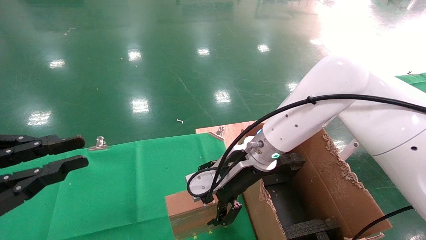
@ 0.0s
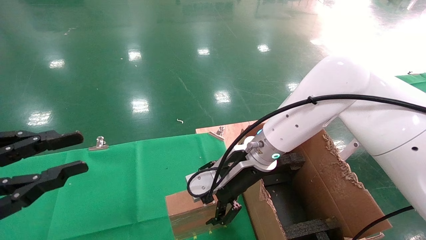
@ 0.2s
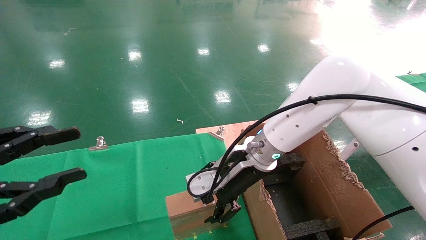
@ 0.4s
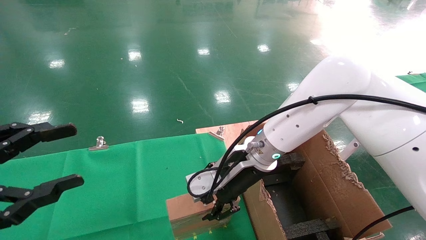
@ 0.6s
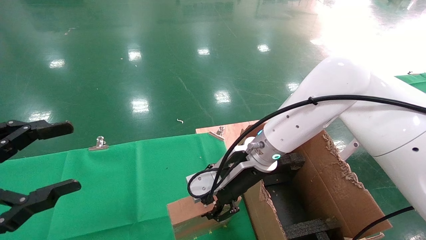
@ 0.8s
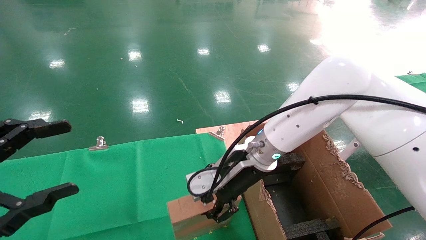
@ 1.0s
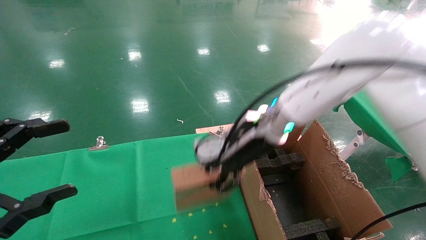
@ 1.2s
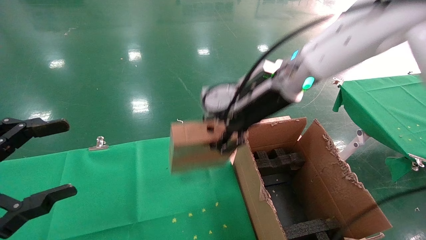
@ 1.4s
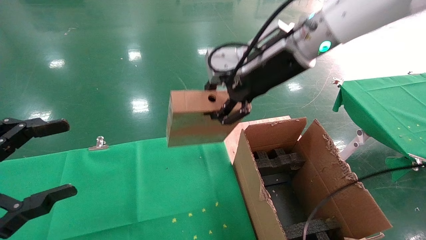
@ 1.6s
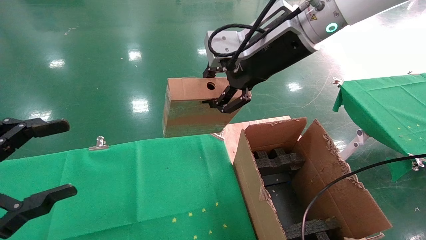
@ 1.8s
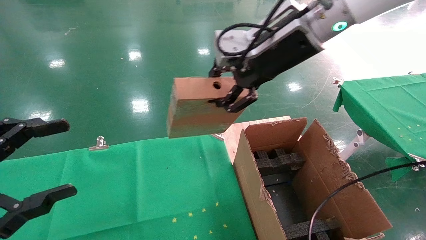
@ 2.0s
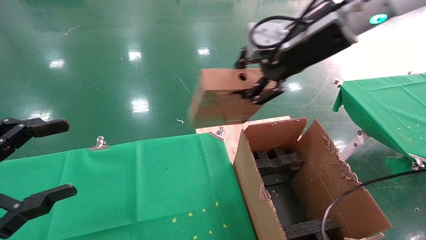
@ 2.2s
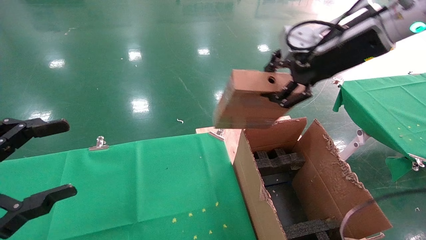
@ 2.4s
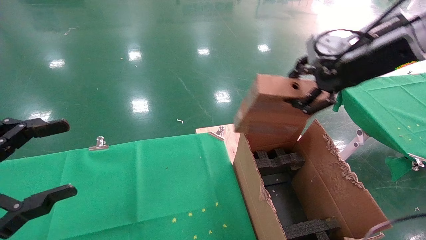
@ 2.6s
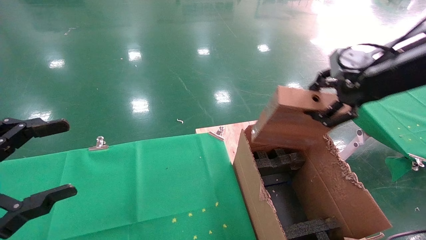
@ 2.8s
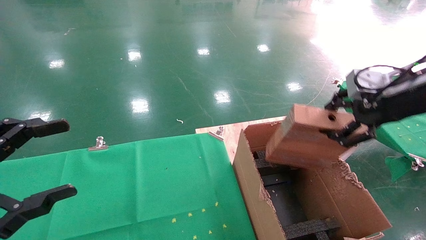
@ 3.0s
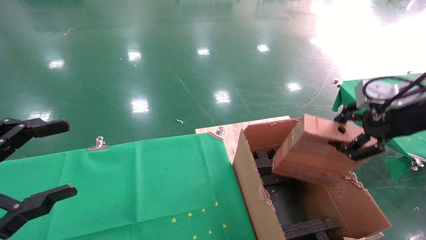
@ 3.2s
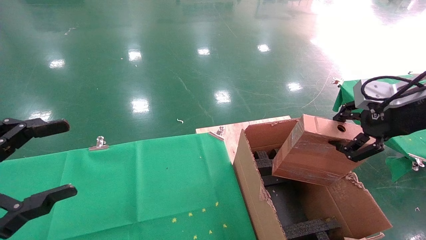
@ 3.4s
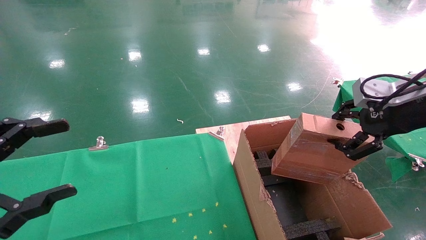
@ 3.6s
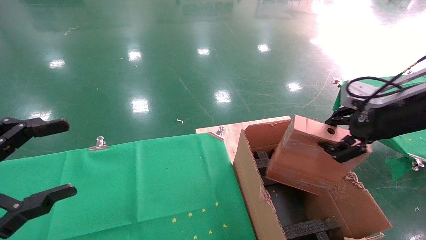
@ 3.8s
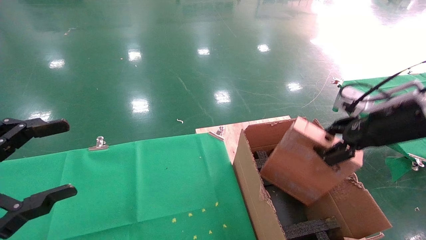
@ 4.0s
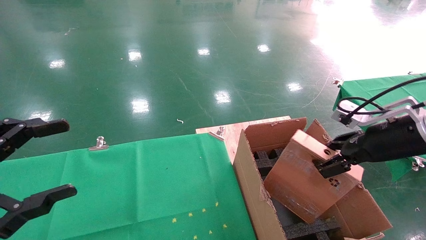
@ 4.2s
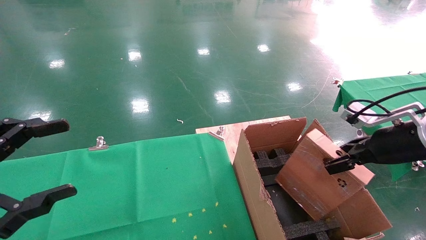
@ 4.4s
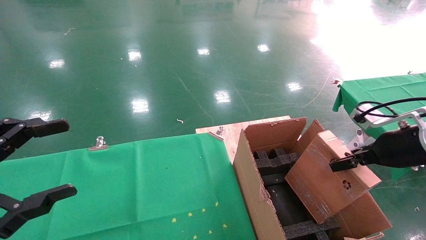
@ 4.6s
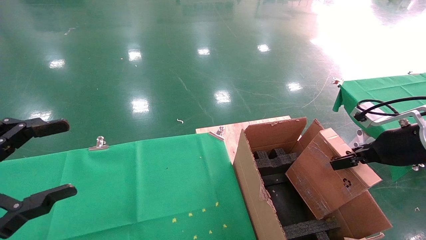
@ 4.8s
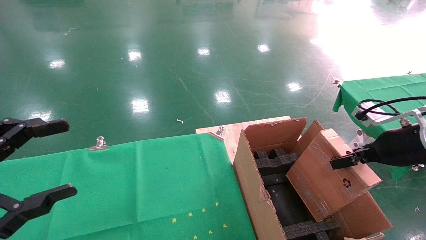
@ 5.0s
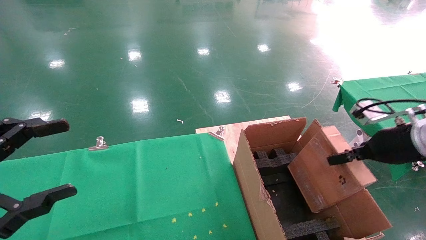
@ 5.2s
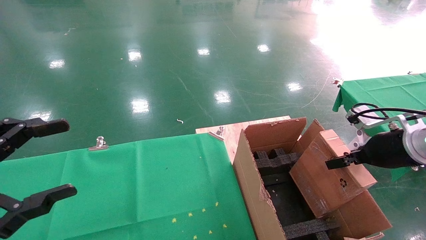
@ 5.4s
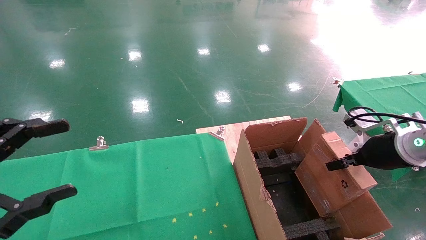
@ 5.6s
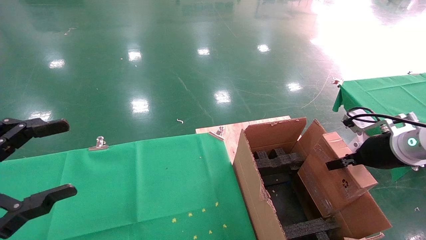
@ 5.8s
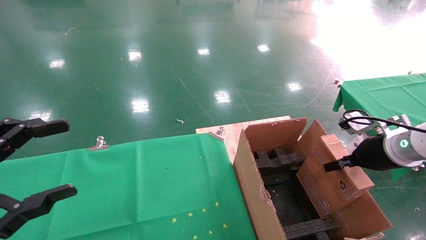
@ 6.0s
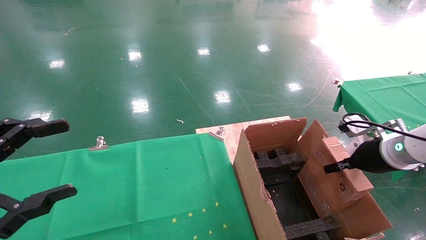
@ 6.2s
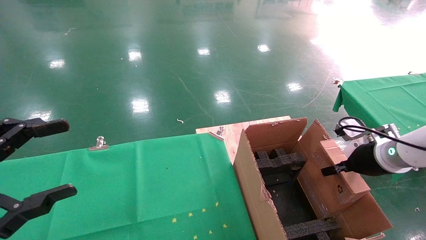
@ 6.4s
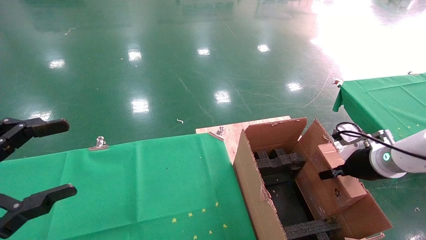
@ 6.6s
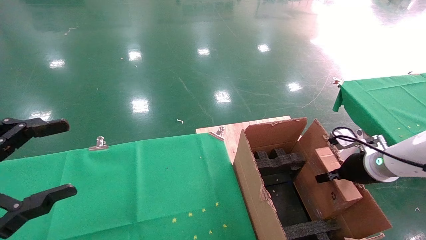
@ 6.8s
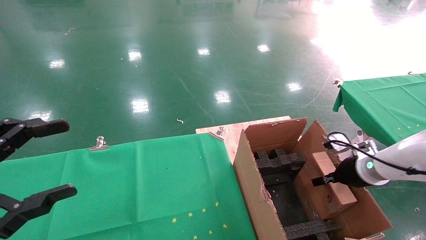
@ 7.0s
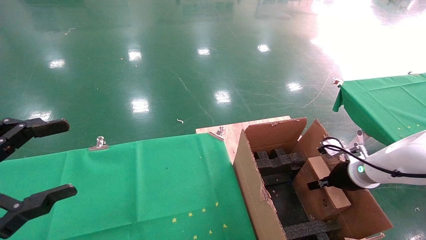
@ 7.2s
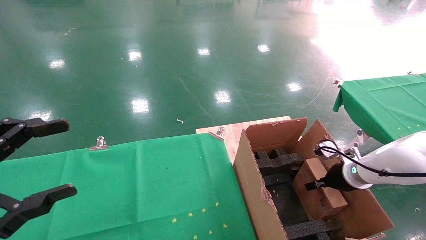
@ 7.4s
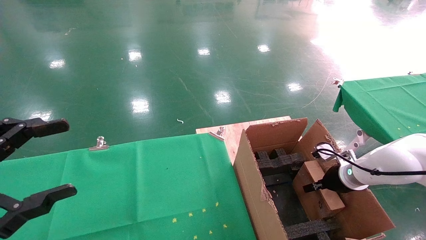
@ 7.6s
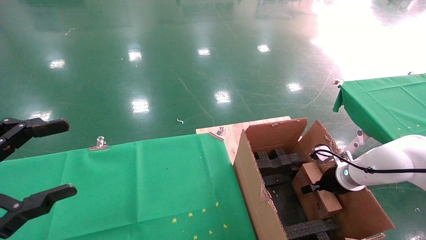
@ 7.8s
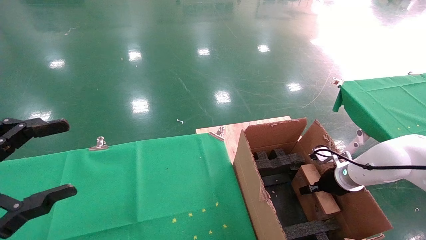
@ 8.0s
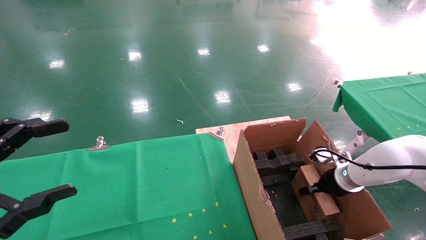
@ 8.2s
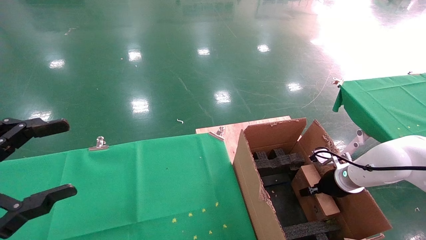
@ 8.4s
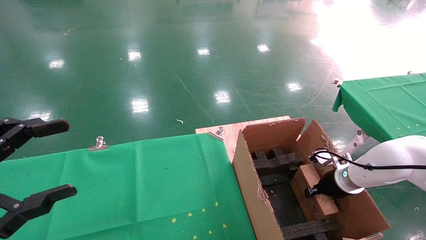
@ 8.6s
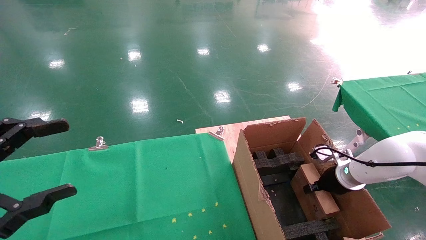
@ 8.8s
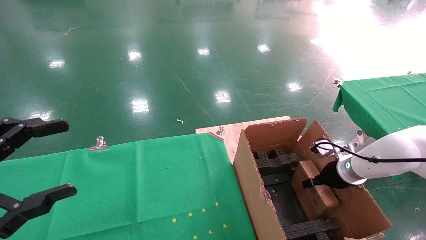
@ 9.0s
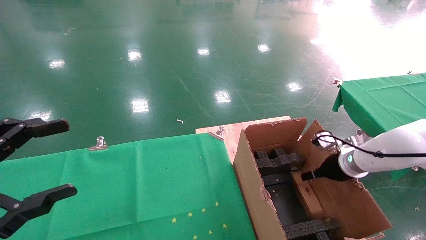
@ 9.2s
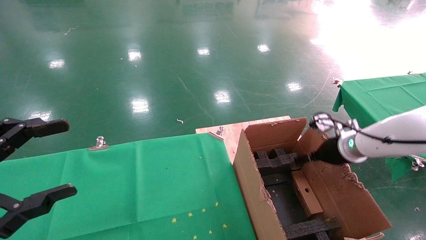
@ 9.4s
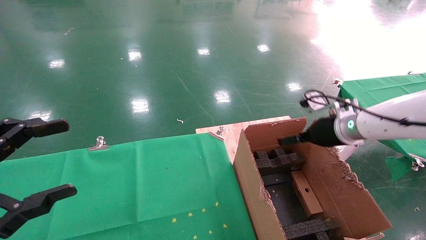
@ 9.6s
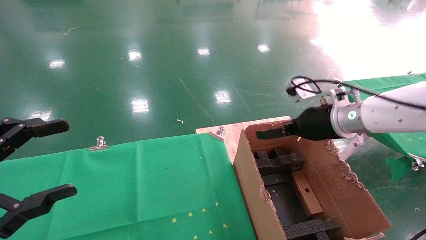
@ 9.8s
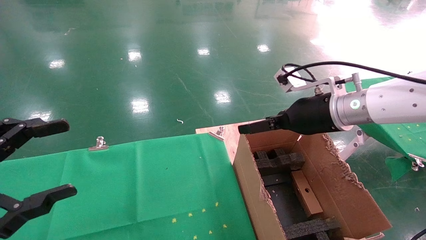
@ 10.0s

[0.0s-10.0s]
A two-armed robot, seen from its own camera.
Task of the whole recording: using a robotic arm to pick up a cardboard box and palace it the carton.
Step, 1.2s to 9.2s: Place the mouse and the power cord paper box into the container.
0.0s to 1.4s: The left gripper opens its fingers. The right gripper travels upward by roughly 15 cm, and closes up.
1.4s to 2.8s: The right gripper moves to the right, roughly 20 cm.
2.8s to 4.2s: The right gripper goes some 10 cm downward.
4.2s to 5.8s: The right gripper is displaced downward by some 5 cm.
5.8s to 7.2s: The right gripper goes roughly 10 cm downward and forward.
7.2s to 8.6s: There are only small adjustments of the grippers.
8.6s to 10.0s: The right gripper goes approximately 25 cm upward and to the left, and opens its fingers.

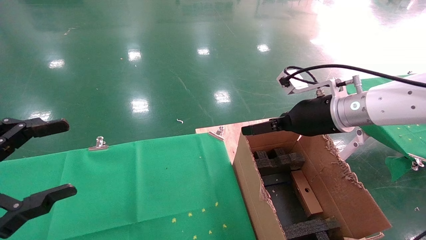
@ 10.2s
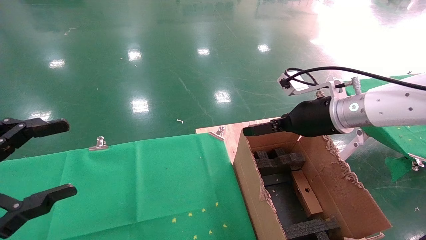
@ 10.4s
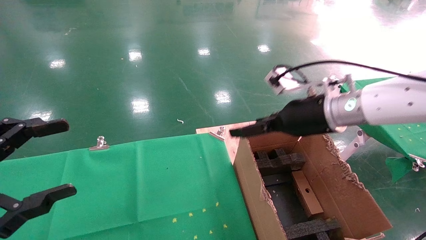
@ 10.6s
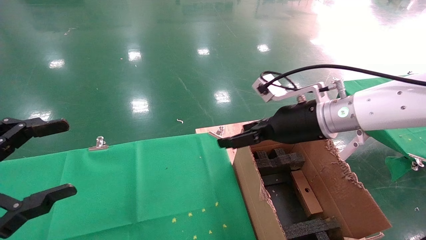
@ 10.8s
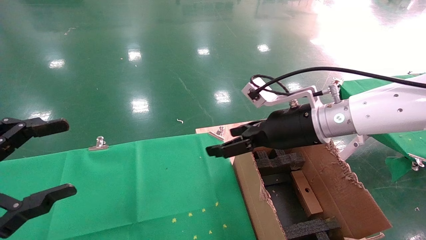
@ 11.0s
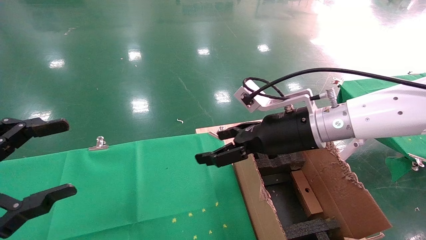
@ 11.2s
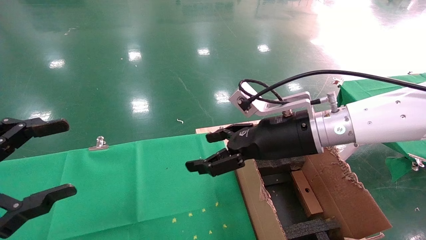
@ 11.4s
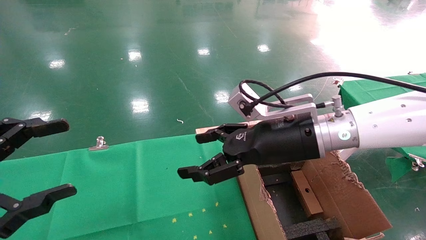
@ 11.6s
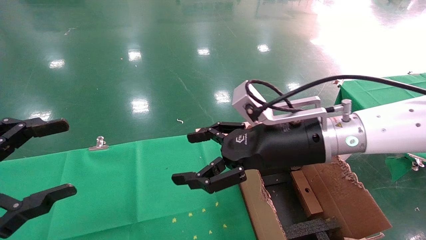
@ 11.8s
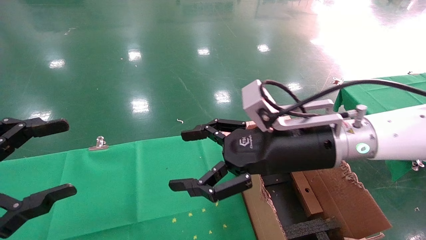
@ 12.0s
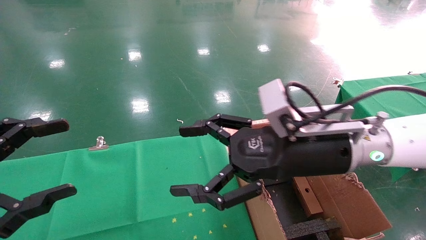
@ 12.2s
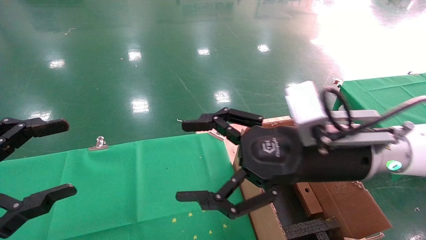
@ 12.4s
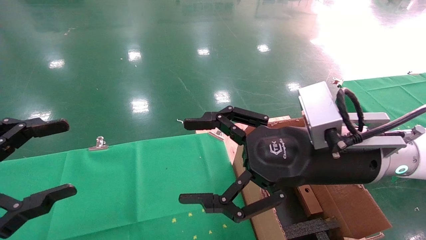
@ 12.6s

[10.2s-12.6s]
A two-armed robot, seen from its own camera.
Task of the whole recording: using a robotic arm to pick up a cardboard box and palace it the carton.
10.2s to 11.4s: The right gripper travels to the left by some 10 cm.
11.4s to 12.6s: The right gripper travels backward by some 5 cm.

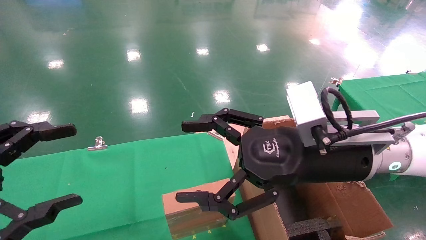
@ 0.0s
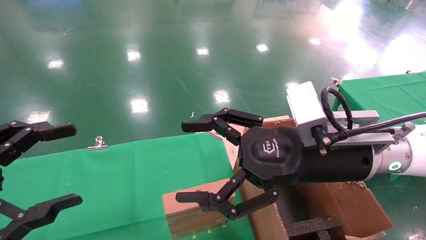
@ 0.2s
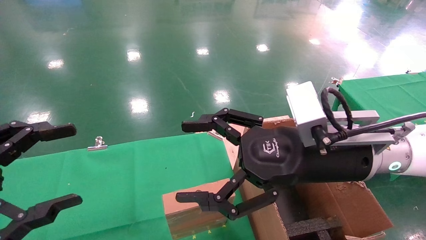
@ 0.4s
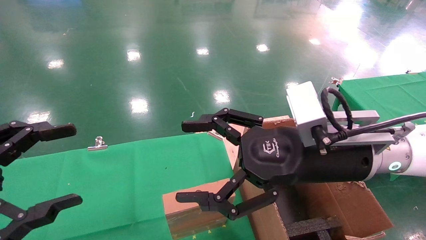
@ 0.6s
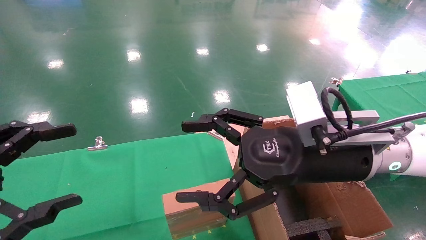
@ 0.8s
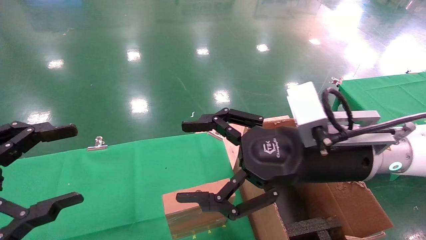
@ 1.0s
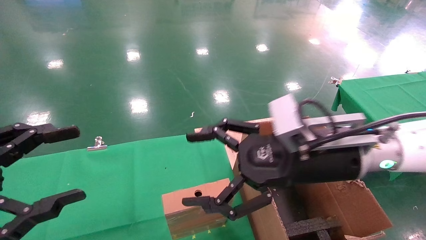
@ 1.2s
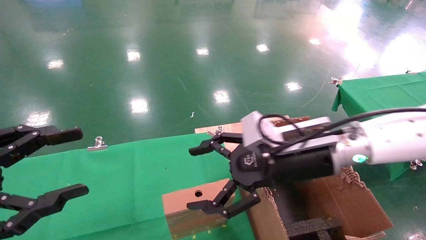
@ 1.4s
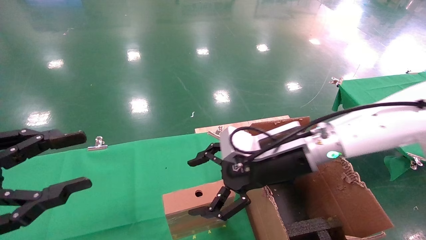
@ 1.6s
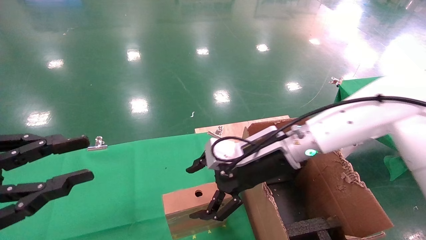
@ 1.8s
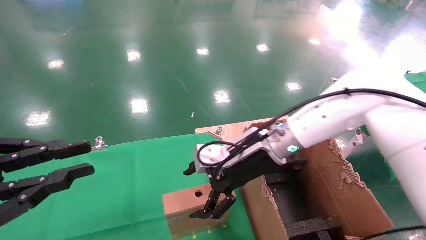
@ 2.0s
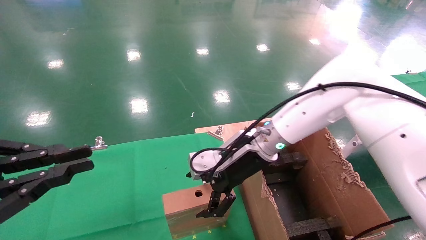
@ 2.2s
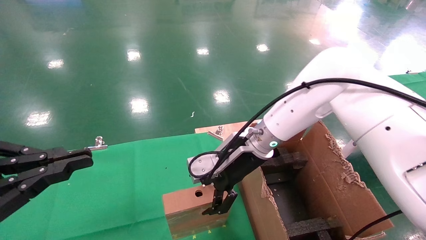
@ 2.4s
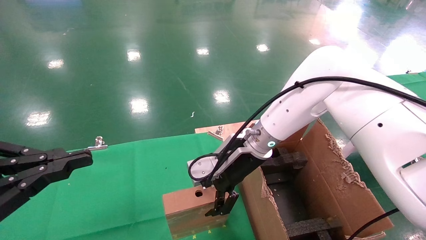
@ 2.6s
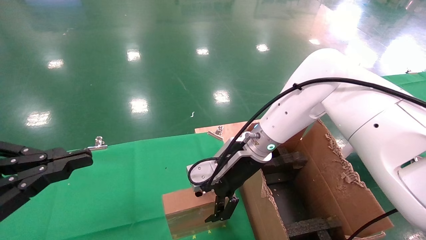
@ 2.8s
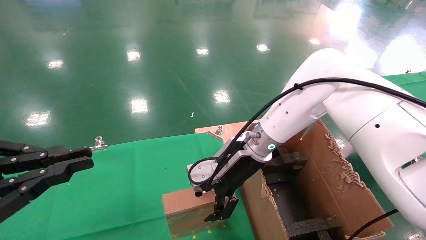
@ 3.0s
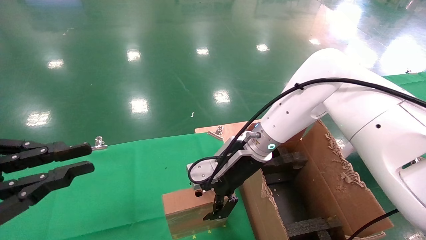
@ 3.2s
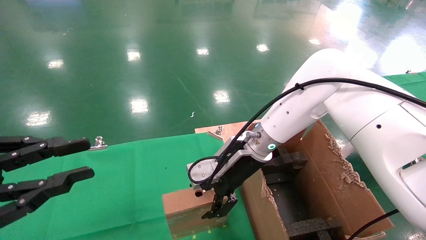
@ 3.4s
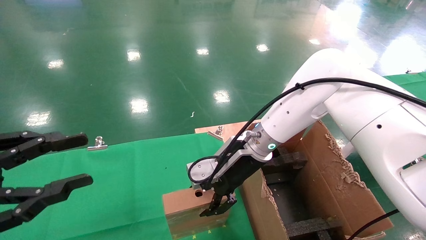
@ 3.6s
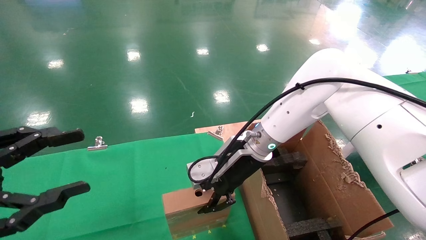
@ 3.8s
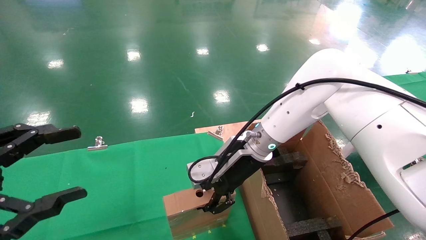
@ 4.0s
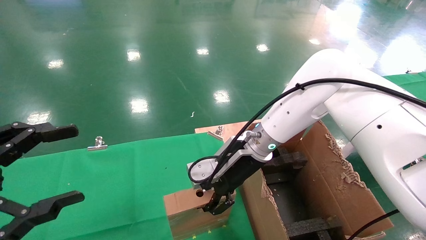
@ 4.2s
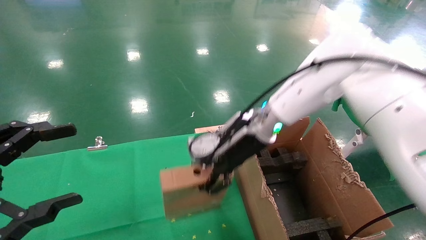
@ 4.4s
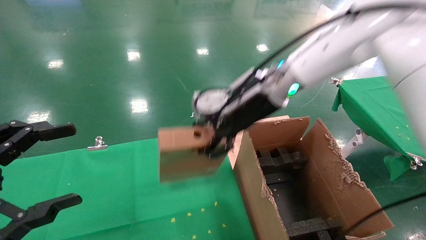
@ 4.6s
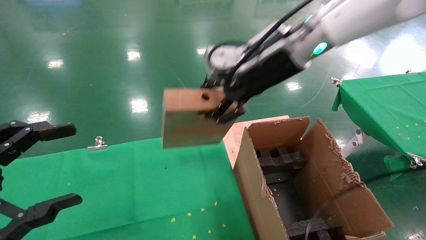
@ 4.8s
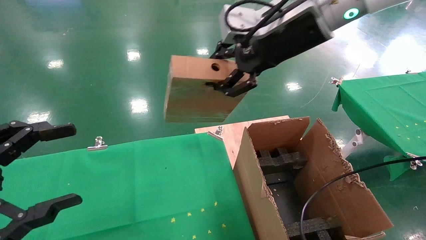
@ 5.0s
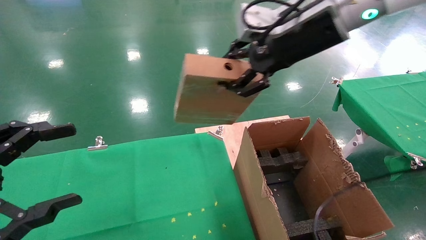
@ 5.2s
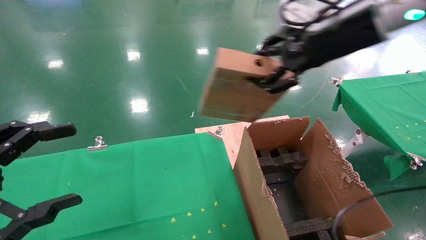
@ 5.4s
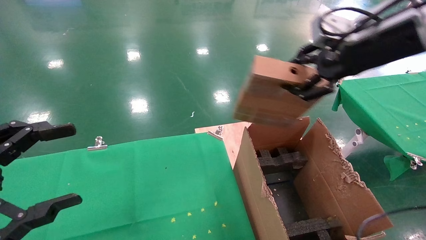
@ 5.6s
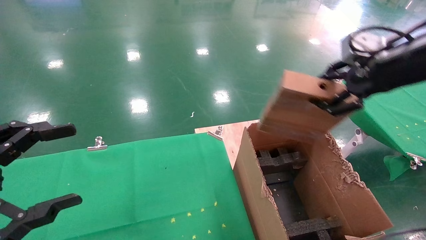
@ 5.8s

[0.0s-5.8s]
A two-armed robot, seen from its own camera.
Task of the whole recording: using a robotic arm to pick up a cardboard box and palace it the carton.
Step, 1.2s to 3.8s: Pick up the mouse and the power cord paper box.
0.0s to 1.4s: The right gripper shifts roughly 5 cm forward.
1.4s to 2.8s: The left gripper closes. The right gripper shifts approximately 10 cm forward and to the left.
2.8s to 4.4s: The left gripper opens its fingers; the right gripper travels upward by some 5 cm, and closes.
4.4s to 5.8s: The right gripper is displaced to the right, upward and backward by some 30 cm.
